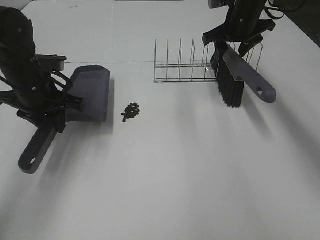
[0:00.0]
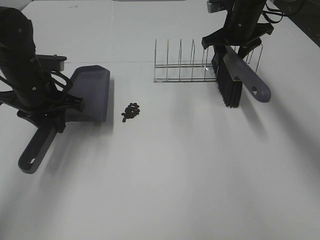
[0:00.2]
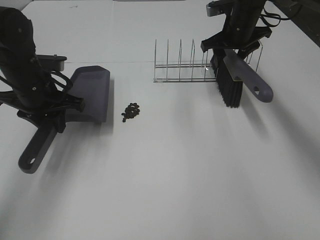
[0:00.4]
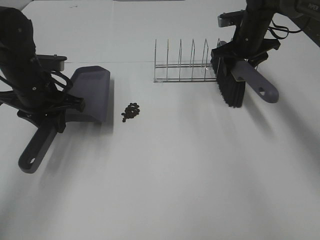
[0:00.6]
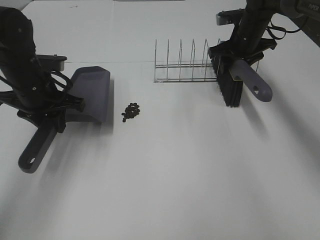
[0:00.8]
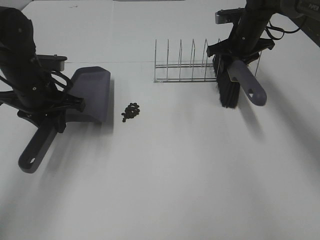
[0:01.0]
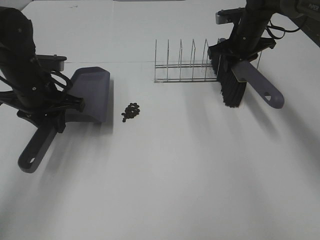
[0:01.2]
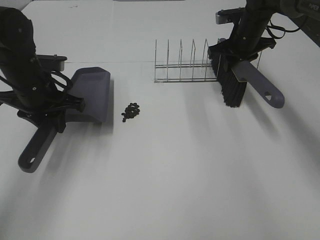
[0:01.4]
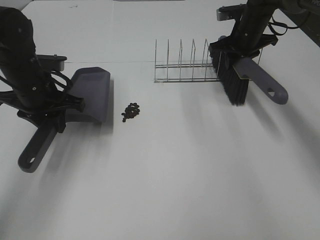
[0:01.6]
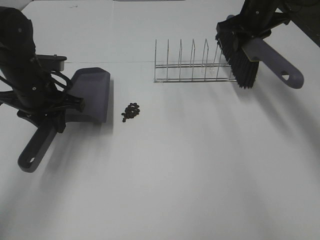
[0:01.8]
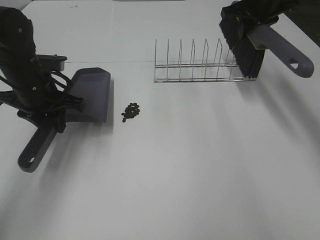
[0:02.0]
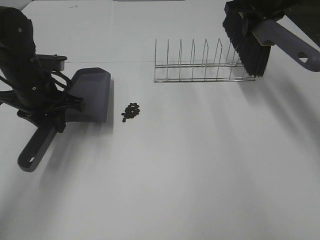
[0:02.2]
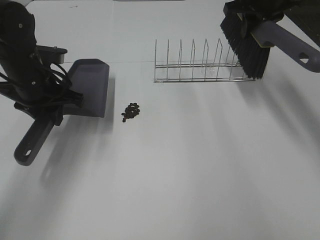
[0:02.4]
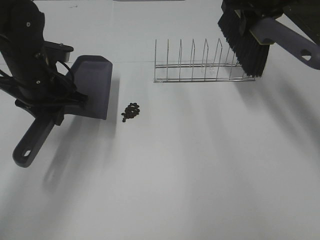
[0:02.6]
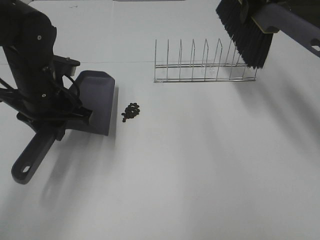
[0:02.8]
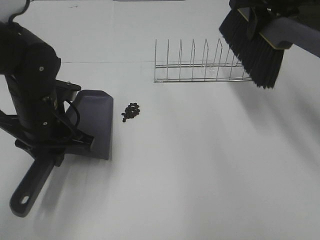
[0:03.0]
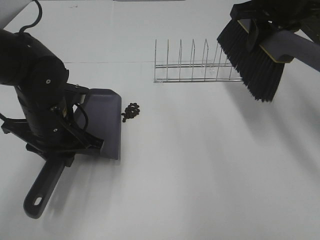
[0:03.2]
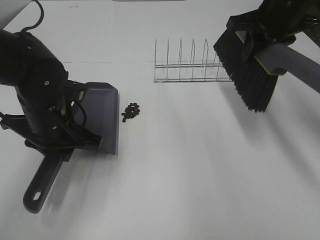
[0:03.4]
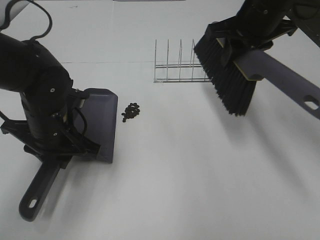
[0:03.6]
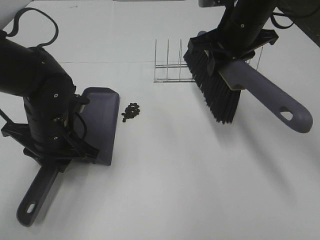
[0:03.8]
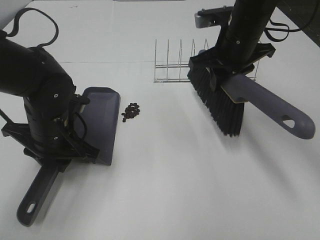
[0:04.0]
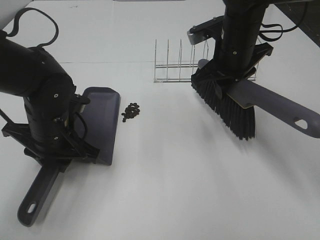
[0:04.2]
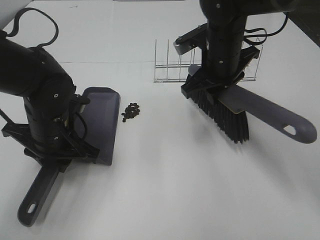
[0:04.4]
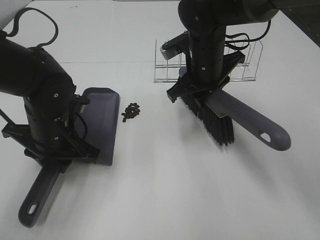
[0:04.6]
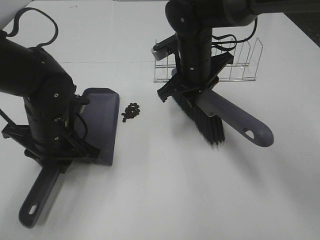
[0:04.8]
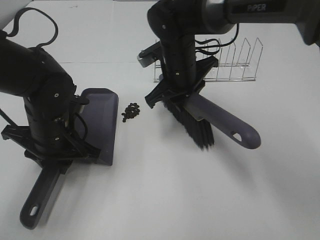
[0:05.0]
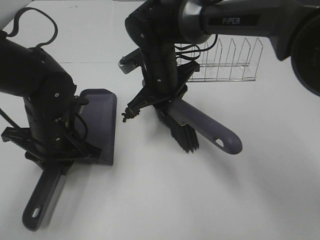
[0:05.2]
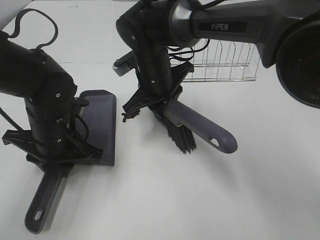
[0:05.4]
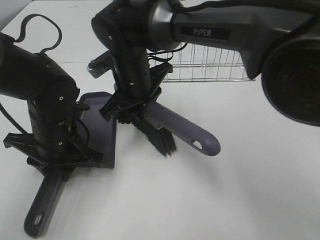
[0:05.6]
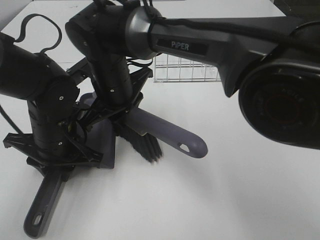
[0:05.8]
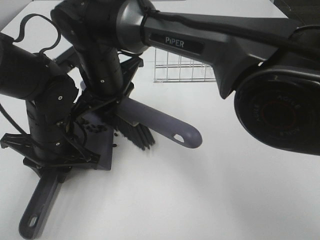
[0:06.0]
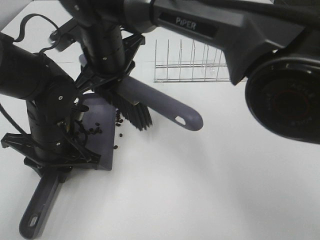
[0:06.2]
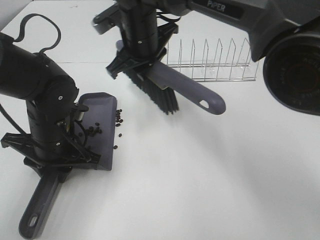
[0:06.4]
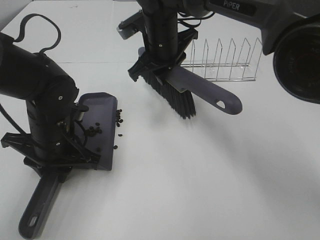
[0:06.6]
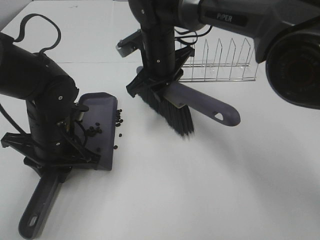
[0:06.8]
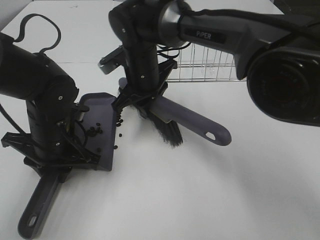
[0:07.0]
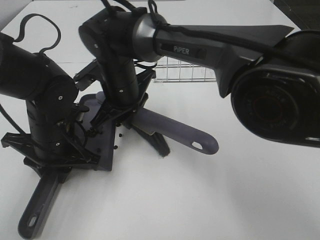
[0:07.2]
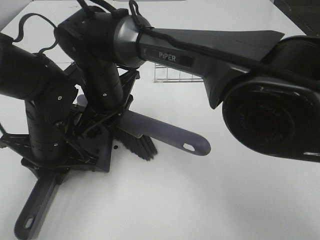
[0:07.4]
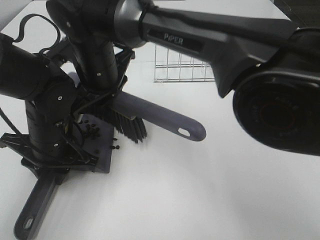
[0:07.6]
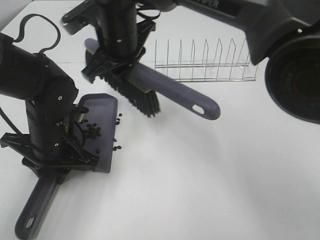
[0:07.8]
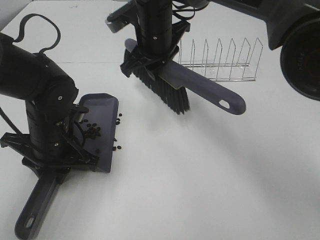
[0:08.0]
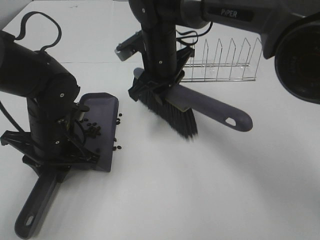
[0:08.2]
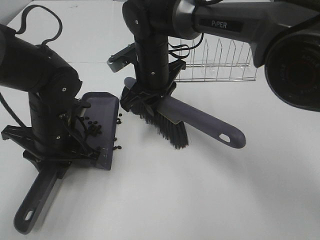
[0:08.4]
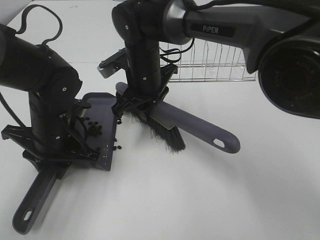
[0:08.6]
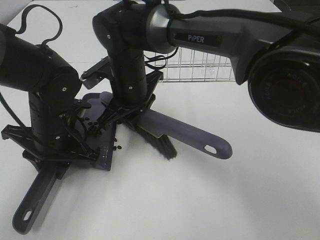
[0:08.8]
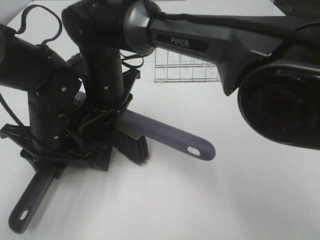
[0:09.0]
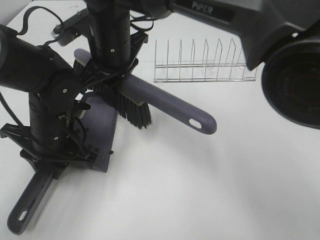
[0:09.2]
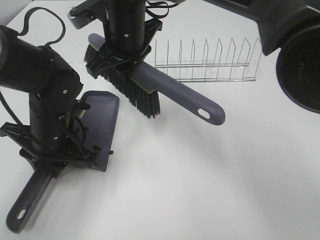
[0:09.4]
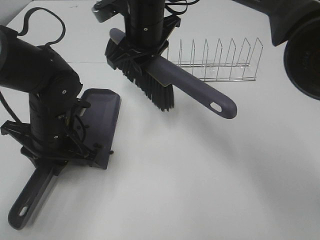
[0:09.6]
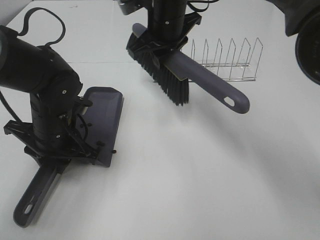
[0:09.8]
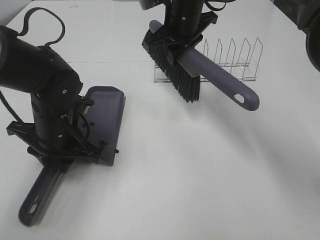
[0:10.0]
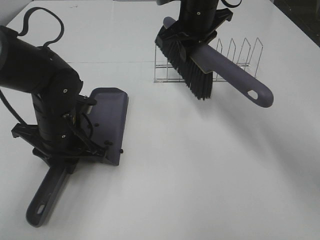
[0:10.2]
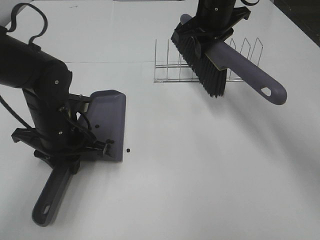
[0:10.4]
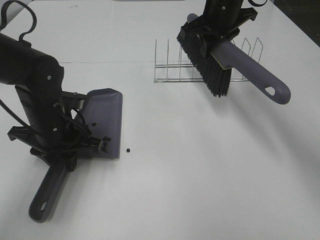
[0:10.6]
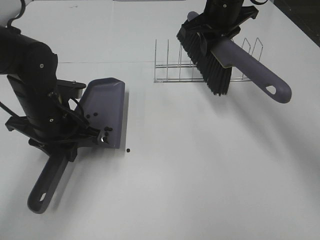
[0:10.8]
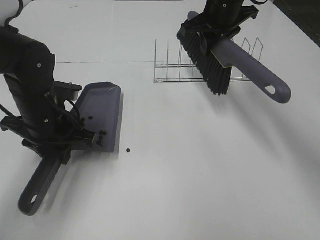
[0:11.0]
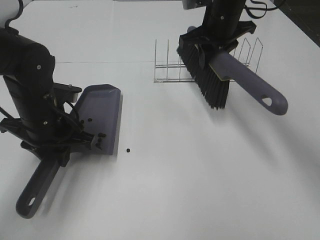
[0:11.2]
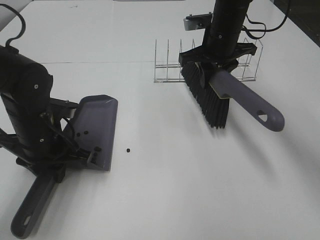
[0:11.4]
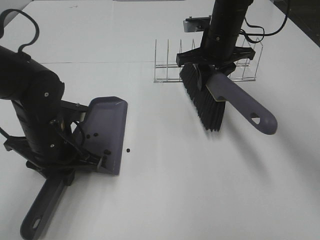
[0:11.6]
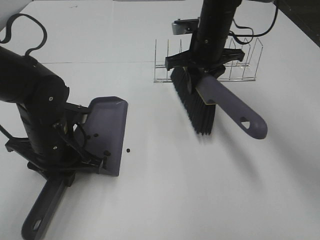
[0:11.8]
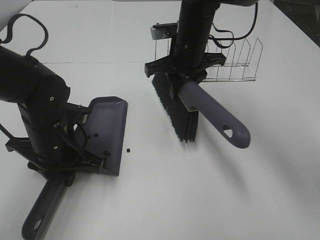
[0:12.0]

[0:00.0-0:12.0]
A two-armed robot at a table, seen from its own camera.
Task of the whole recording: Sweep Coffee Bean.
Step, 0.0 to 4.6 s: Left hand: move the dustpan to the left side of the coffee beans.
0.0 to 1.6 s: The right gripper closes up.
1.6 to 3.0 s: The left gripper shifts roughly 5 cm backward; the right gripper heads upward and backward, covering some 15 cm.
3.0 to 4.4 s: The right gripper moves downward and to the left, approximately 15 cm.
4.4 to 6.0 s: The right gripper shifts some 20 cm to the left.
6.0 to 7.6 s: The right gripper travels to the right and back again, some 10 cm each way.
7.6 to 9.0 s: The right gripper travels to the right and back again, about 10 cm each way.
9.0 to 10.4 s: The right gripper heads to the right and forward, covering about 25 cm.
10.4 to 12.0 s: The right gripper is displaced to the left, backward and downward by about 10 cm.

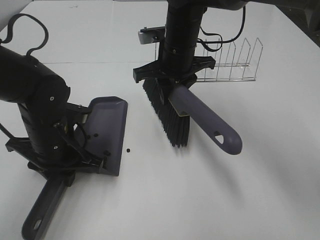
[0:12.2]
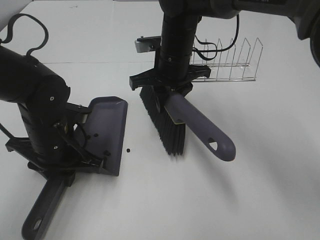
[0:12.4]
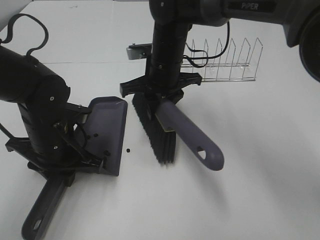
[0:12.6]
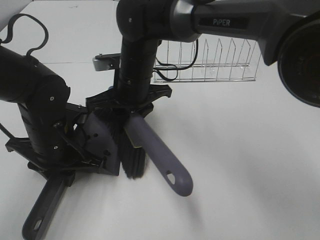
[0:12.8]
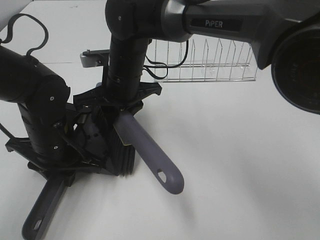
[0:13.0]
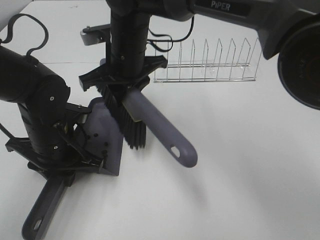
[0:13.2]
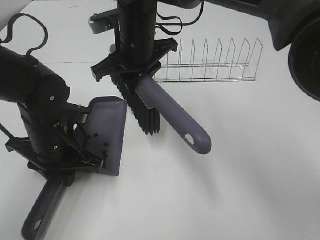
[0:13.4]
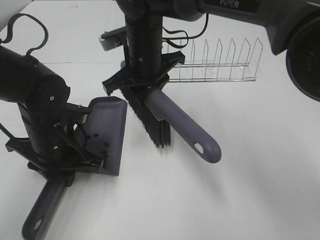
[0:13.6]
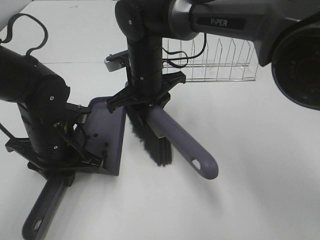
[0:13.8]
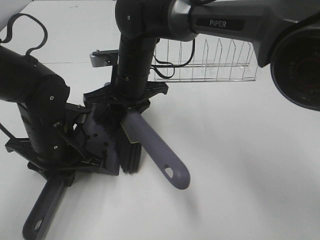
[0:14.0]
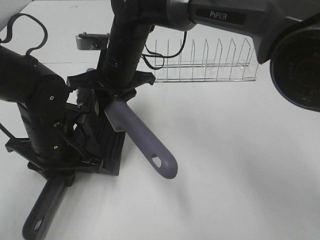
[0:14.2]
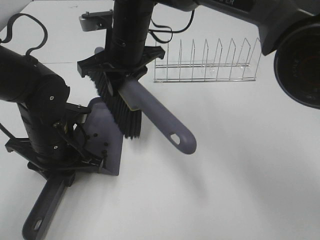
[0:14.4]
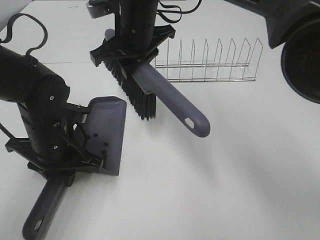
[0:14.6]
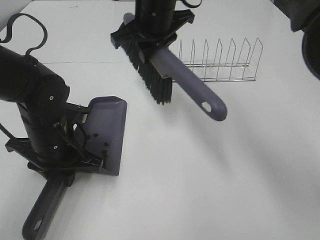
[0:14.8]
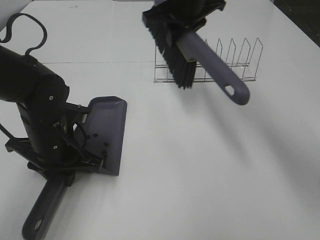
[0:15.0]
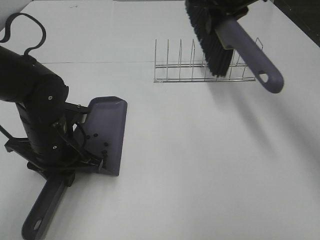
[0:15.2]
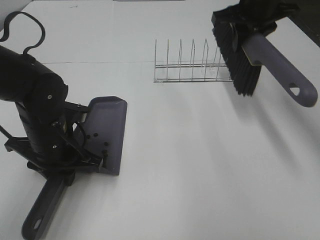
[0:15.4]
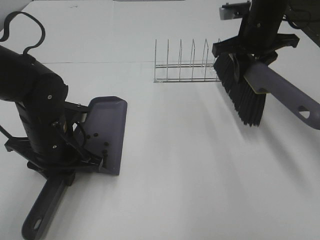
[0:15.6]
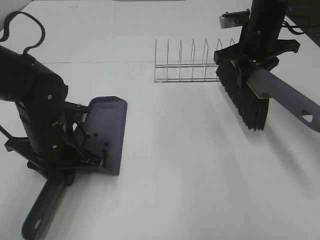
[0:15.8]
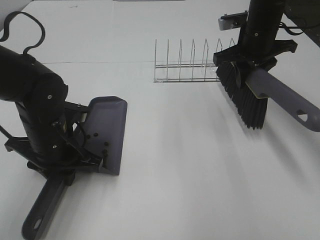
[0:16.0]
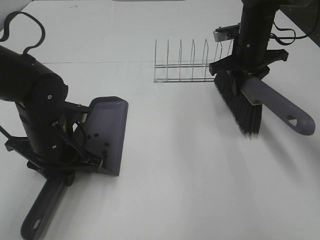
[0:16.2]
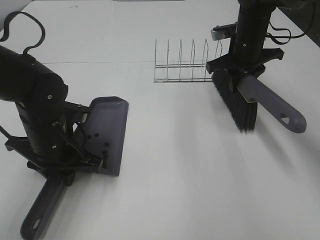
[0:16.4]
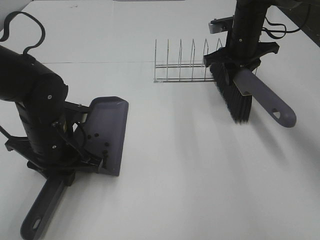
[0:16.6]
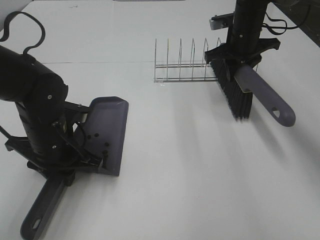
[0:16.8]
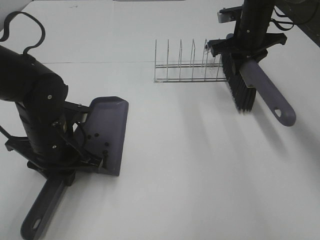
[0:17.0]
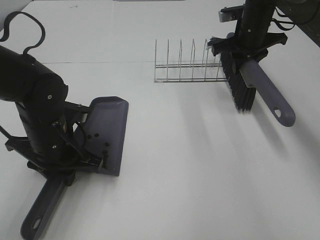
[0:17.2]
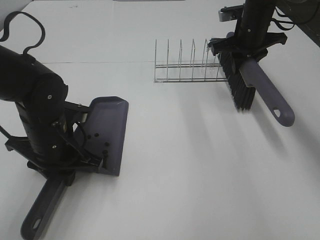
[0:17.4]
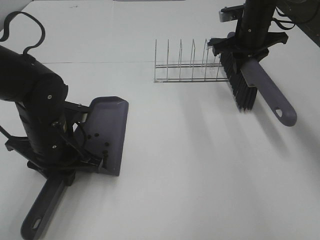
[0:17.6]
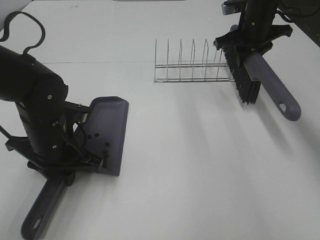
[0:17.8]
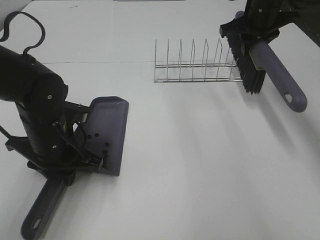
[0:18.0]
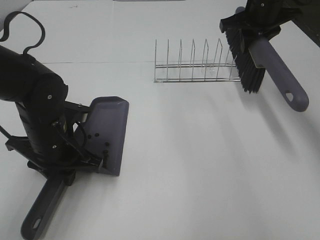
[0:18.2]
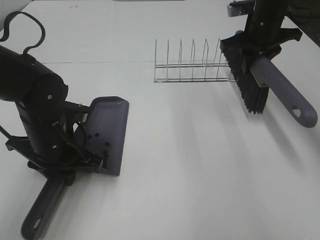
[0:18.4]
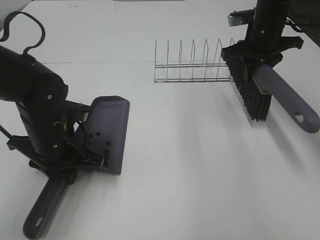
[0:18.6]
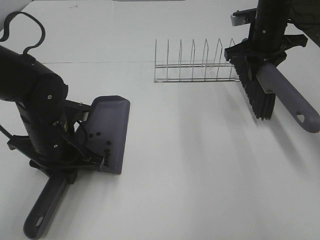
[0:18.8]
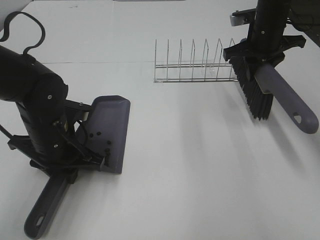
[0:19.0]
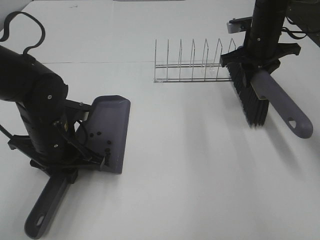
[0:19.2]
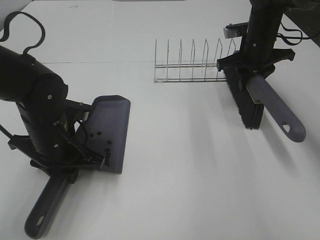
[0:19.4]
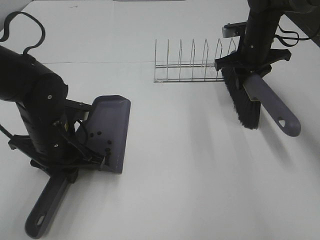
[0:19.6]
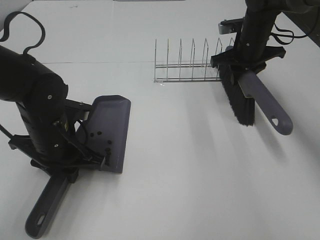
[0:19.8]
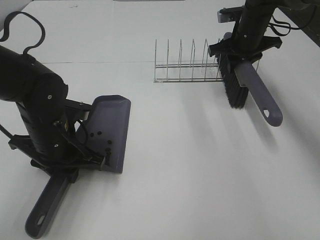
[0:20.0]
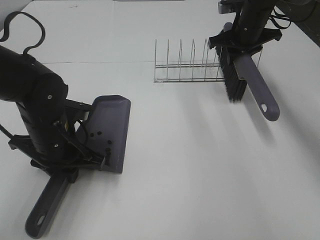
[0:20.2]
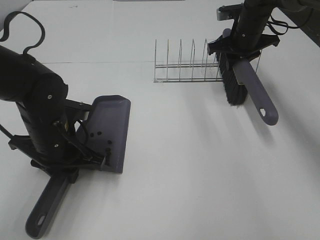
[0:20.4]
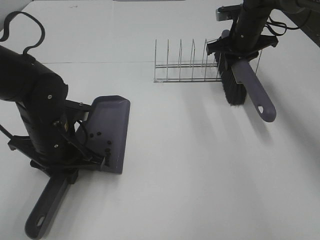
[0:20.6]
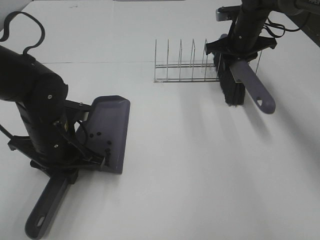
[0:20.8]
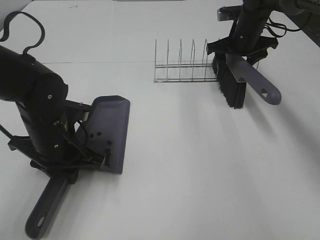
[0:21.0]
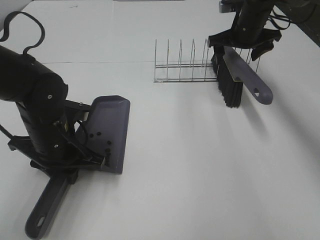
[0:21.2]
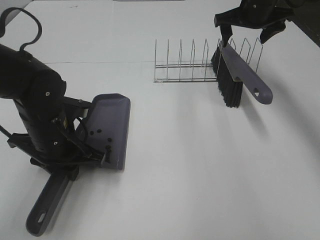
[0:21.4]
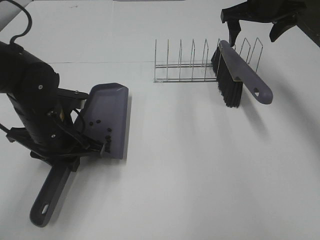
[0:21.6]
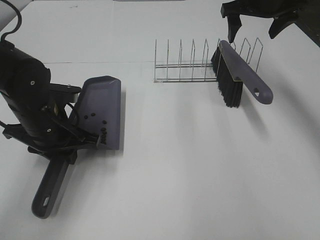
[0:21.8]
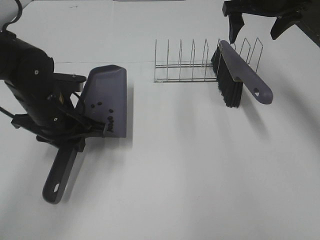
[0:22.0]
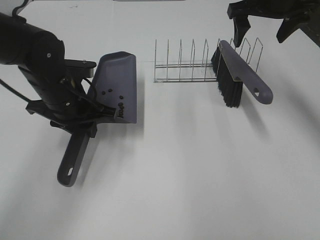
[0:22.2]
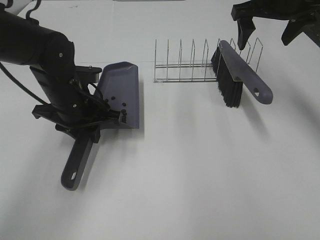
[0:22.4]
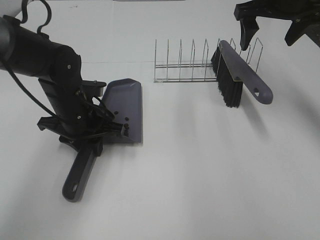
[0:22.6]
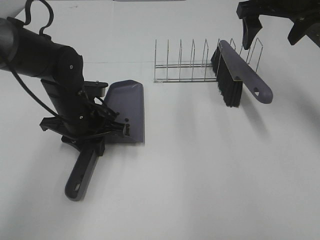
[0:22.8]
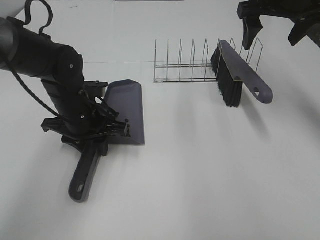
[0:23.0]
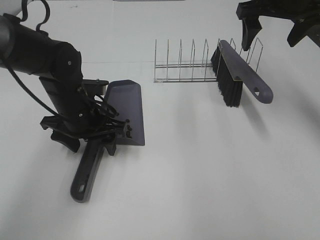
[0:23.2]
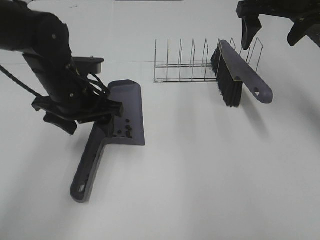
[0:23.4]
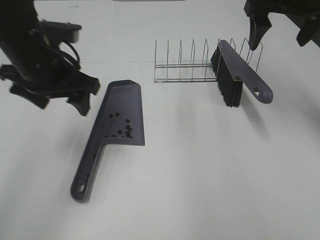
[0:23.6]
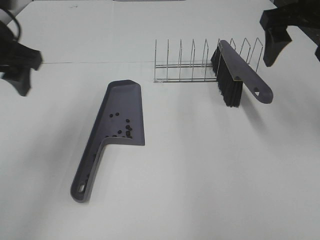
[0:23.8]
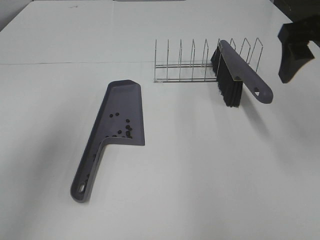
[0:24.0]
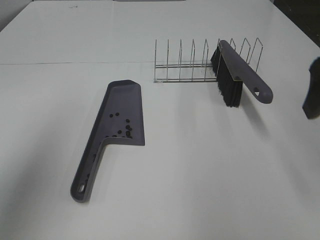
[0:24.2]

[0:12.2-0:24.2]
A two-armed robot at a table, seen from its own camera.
Task of the whole recording: Sweep Coffee Bean.
Step, 13.2 to 20.8 s: Right hand:place the broom on the rack.
Step, 21.0 to 23.0 s: Left hand:place the dustpan on the table.
12.2 to 13.8 s: The right gripper travels to the left by about 5 cm.
13.8 to 15.2 s: The right gripper travels to the right, upward and forward by about 25 cm.
15.2 to 16.6 s: The right gripper shifts approximately 10 cm downward.
16.6 to 18.2 s: The right gripper goes roughly 5 cm upward.
18.2 to 19.8 s: The right gripper travels downward by some 10 cm.
19.8 to 21.2 s: The right gripper opens its fingers.
21.2 to 22.6 s: The left gripper is displaced forward by some 5 cm; the right gripper heads upward and backward, covering roughly 15 cm.
22.6 to 24.2 s: The right gripper moves backward, some 20 cm. The left gripper heads upward, backward and to the left, covering about 30 cm, and opens up.
